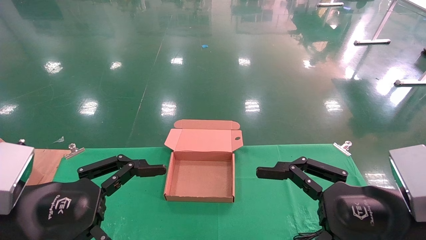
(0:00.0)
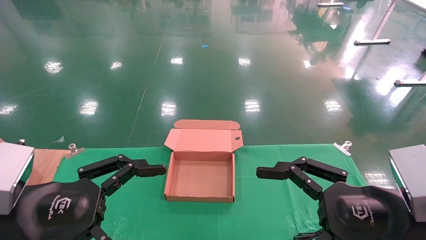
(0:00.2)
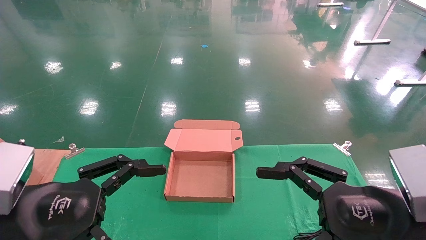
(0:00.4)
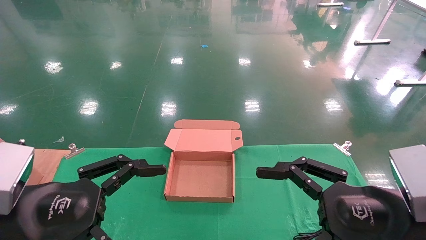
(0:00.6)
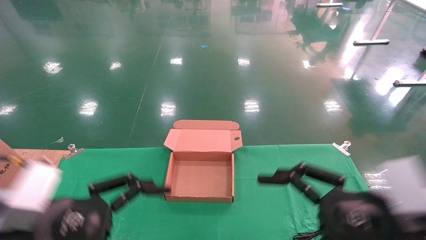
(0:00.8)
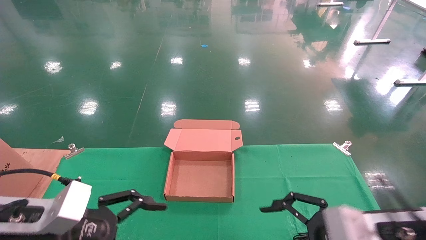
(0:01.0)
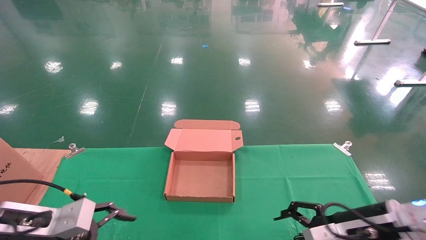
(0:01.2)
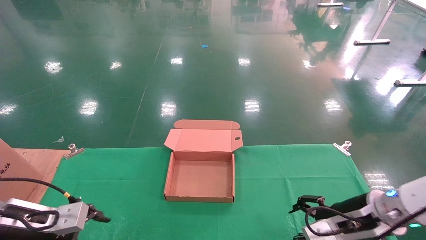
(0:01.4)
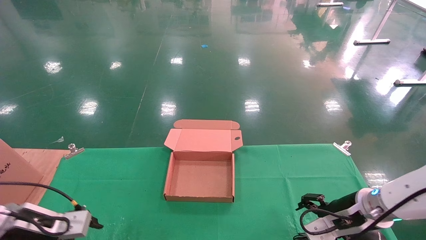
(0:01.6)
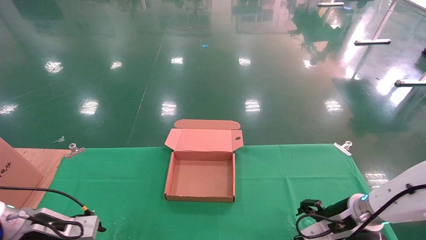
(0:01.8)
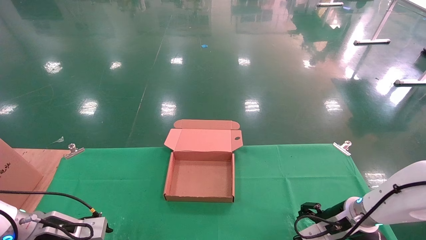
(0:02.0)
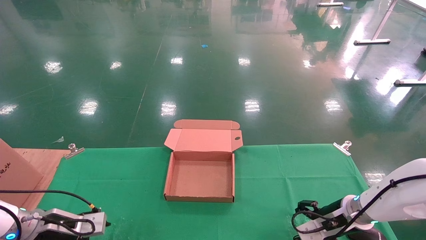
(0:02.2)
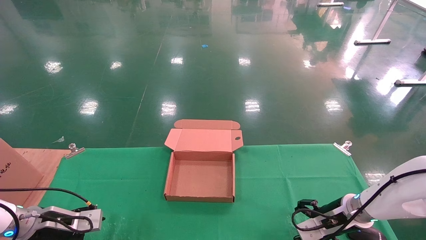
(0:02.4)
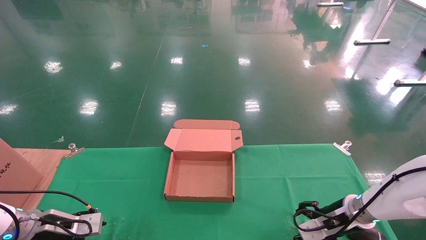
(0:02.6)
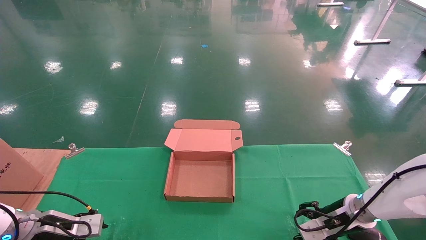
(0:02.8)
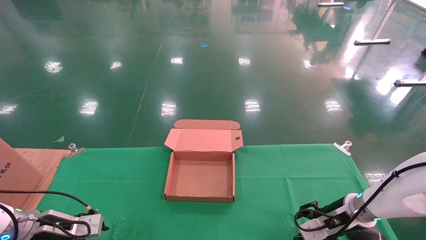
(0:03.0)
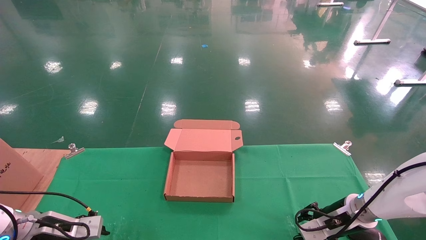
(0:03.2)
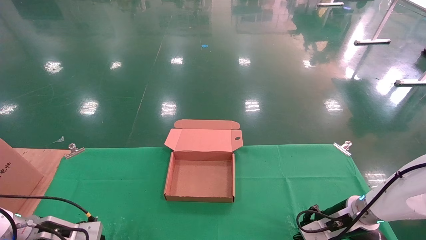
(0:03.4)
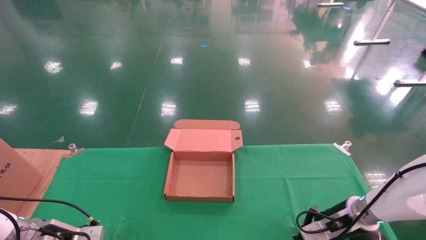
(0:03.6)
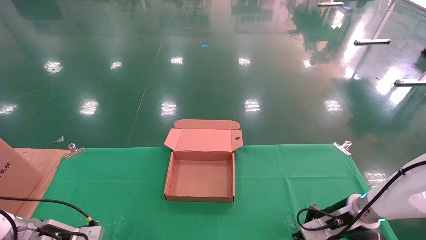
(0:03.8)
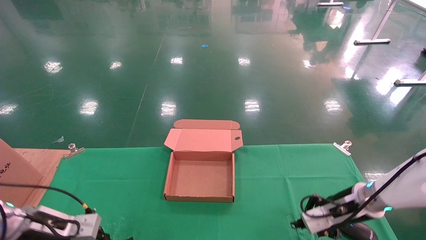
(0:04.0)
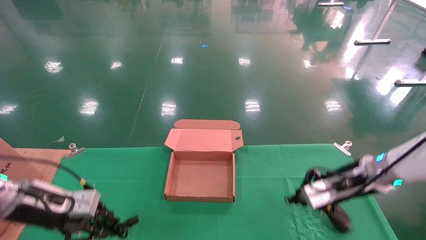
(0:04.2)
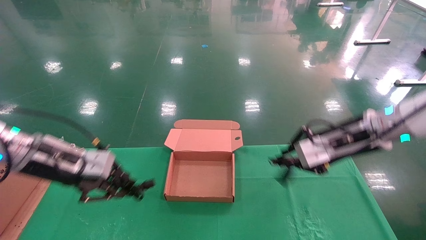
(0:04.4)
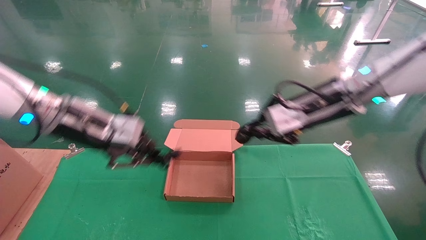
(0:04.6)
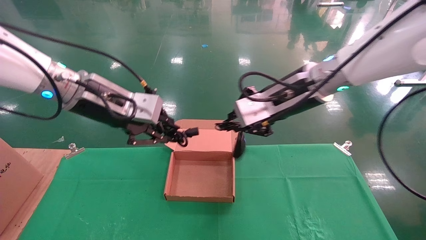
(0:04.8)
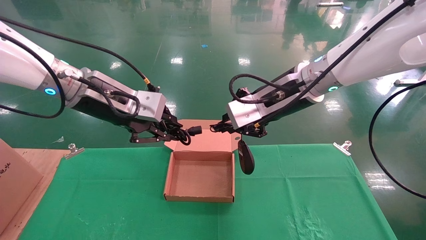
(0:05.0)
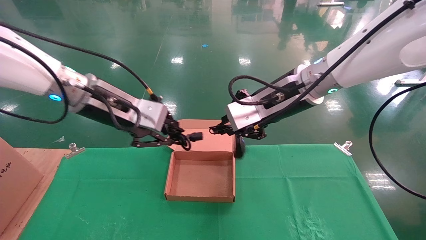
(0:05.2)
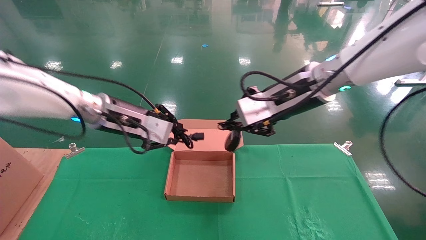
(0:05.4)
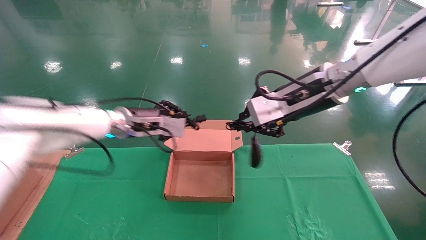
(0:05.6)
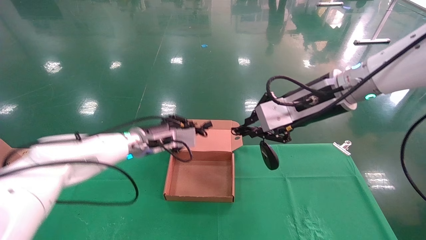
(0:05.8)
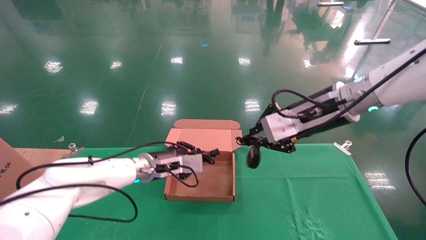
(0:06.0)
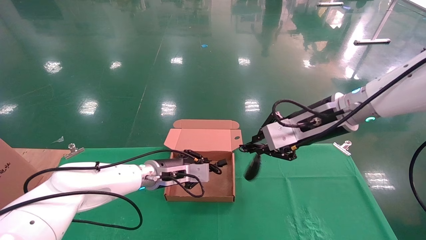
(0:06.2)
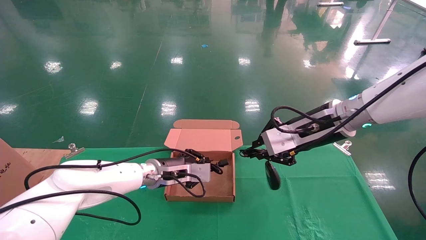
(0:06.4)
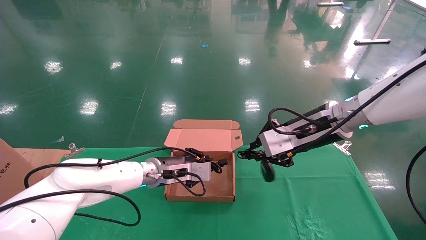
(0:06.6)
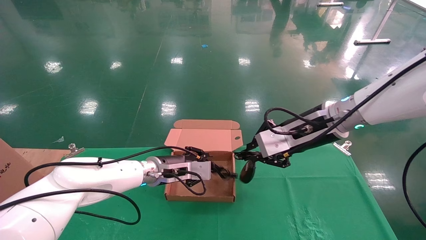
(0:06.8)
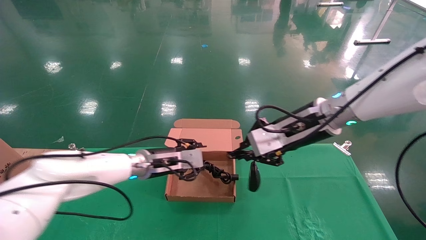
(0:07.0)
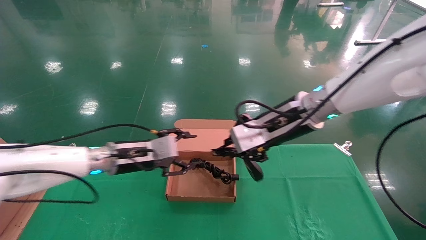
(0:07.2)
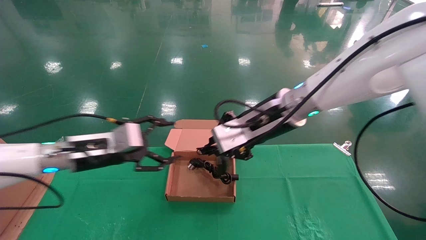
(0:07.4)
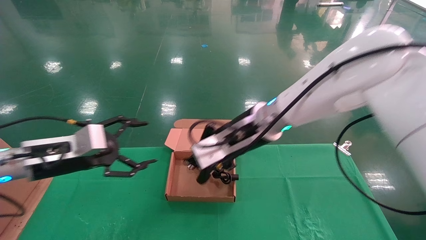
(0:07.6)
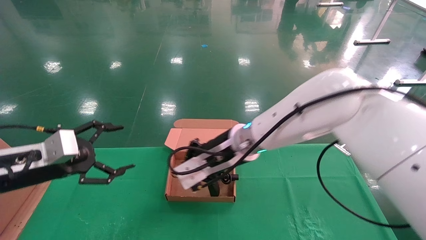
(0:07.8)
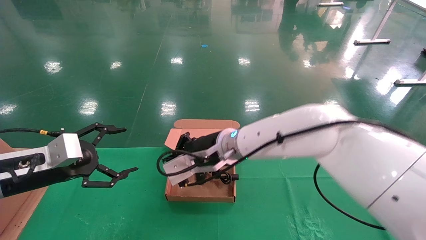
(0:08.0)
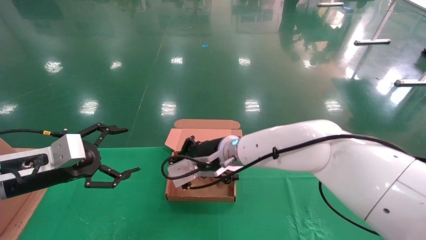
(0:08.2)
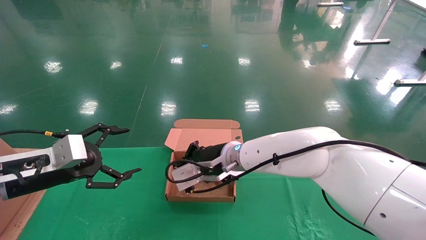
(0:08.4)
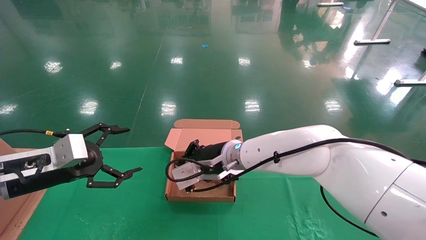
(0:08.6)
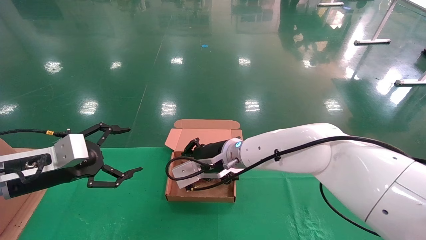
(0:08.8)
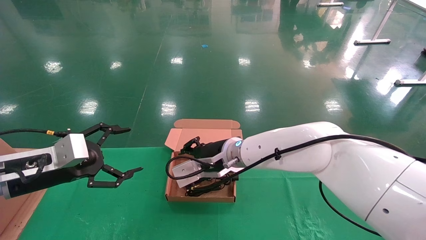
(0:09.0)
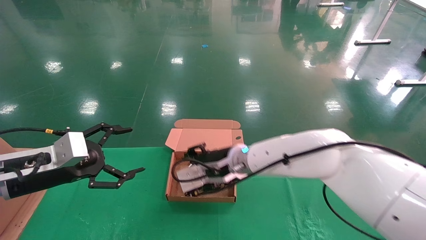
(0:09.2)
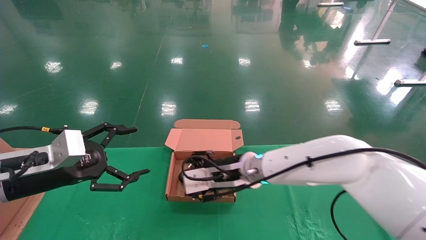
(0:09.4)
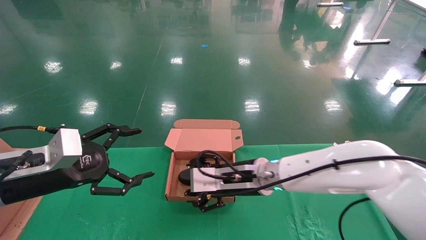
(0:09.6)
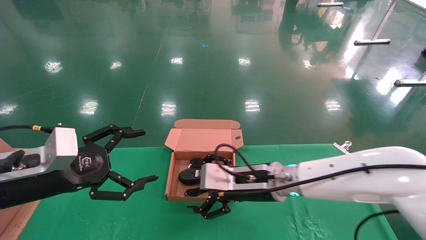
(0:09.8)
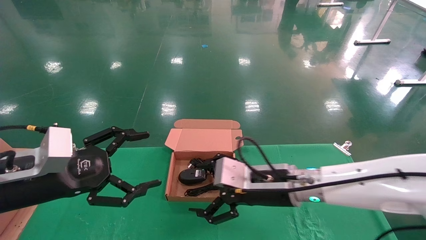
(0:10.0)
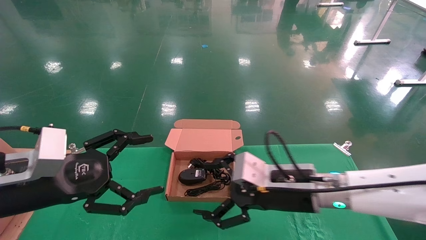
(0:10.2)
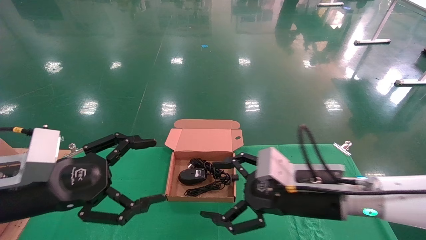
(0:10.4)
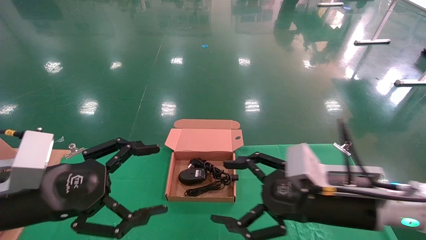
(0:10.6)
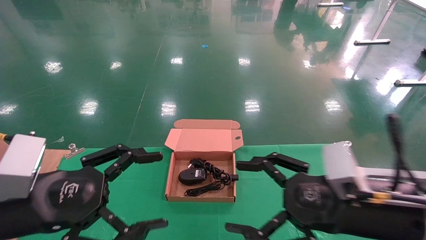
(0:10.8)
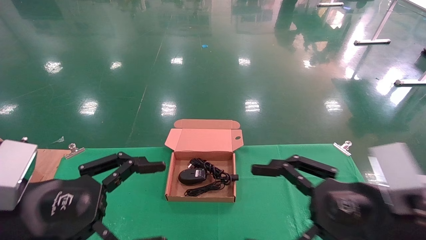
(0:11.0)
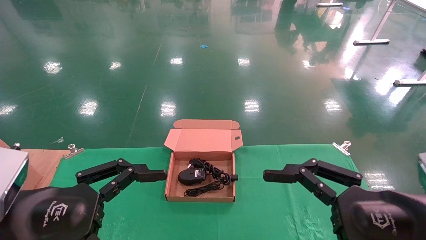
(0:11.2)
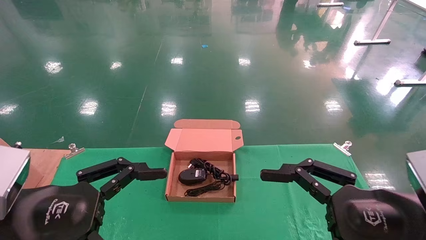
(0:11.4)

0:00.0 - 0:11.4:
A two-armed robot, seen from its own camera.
Step, 0:00.8 - 0:04.4: Grab and lift both the mouse and power cord from the accessory packaging area at the same time.
Step, 0:04.6 - 0:09.6: Place the mouse and power cord into the box.
0:00.0 - 0:01.4: The left gripper is displaced forward, downward and to the left by approximately 20 cm. Meanwhile the right gripper shifts about 15 cm forward and downward.
0:01.4 - 0:02.8: The left gripper travels downward and forward by some 10 cm; the right gripper moves forward and downward, some 10 cm.
0:02.8 - 0:04.2: The grippers both shift upward by roughly 10 cm. The right gripper closes up. The left gripper closes up.
0:04.2 - 0:05.6: The right gripper heads upward and to the left, covering some 20 cm, while the left gripper moves to the right, forward and upward, some 20 cm.
0:05.6 - 0:07.2: The left gripper shifts roughly 10 cm downward and backward, and opens its fingers, while the right gripper ends up about 5 cm from where it was.
0:07.2 - 0:08.6: The left gripper travels to the left and backward by some 15 cm, and opens its fingers. Meanwhile the right gripper is displaced to the left and downward by approximately 15 cm.
0:08.6 - 0:10.0: The left gripper travels backward by some 5 cm; the right gripper heads to the right and backward, covering roughly 15 cm, and opens up.
0:10.0 - 0:11.4: The right gripper is displaced backward and to the right by roughly 20 cm. The left gripper heads backward, covering about 10 cm.
